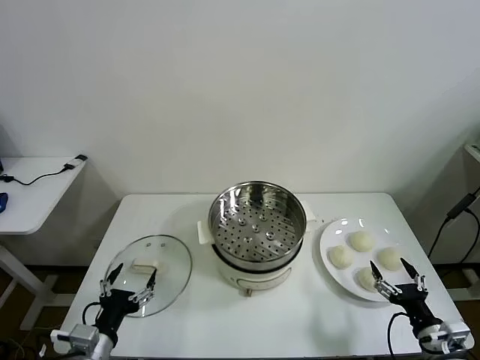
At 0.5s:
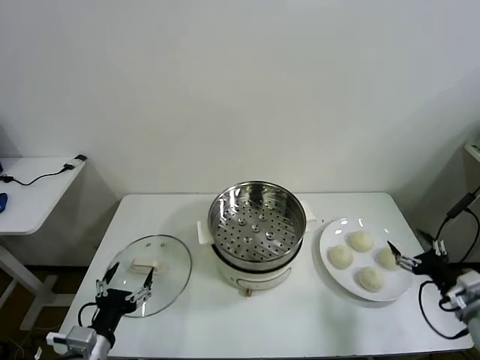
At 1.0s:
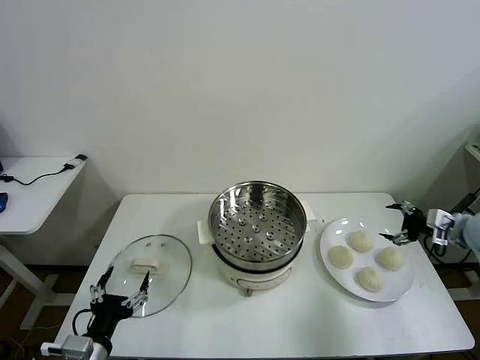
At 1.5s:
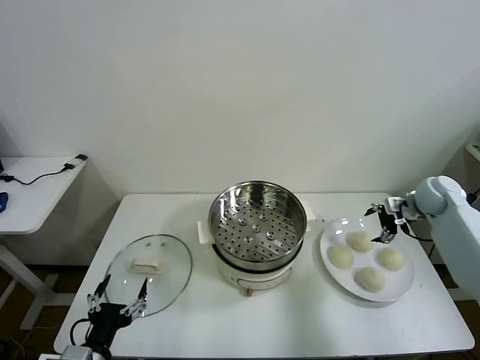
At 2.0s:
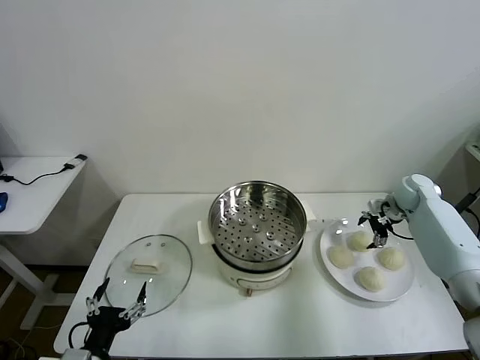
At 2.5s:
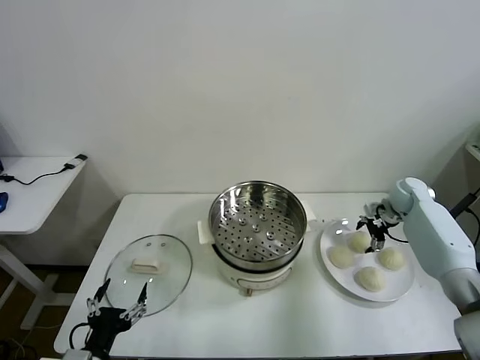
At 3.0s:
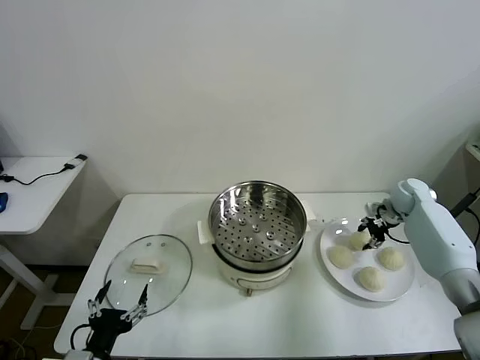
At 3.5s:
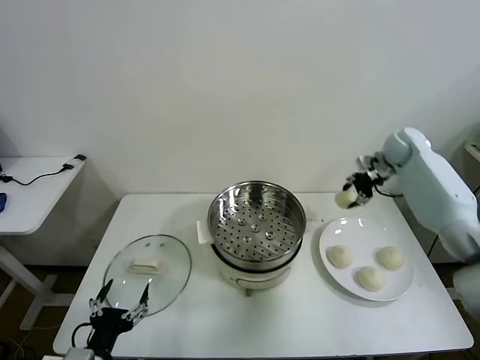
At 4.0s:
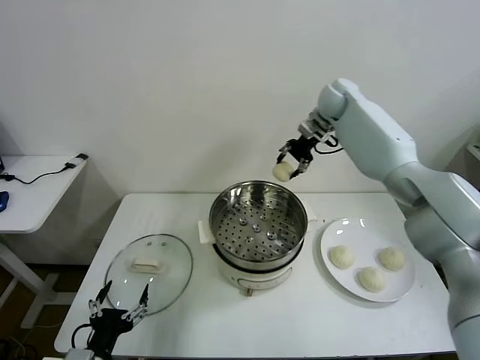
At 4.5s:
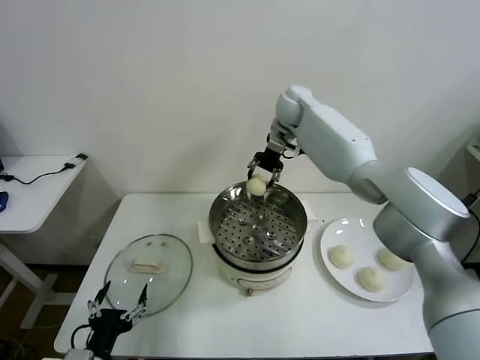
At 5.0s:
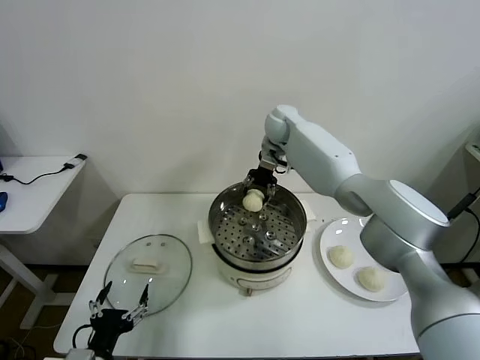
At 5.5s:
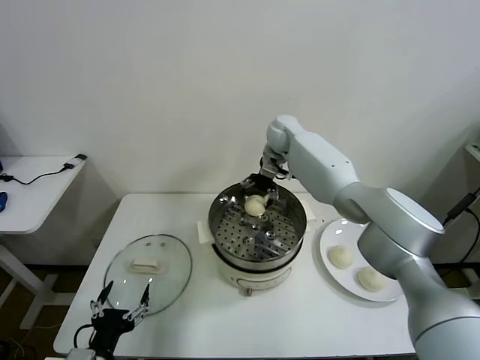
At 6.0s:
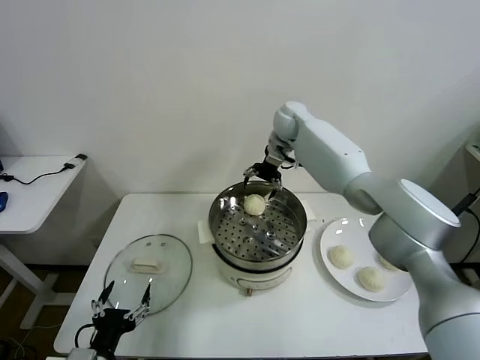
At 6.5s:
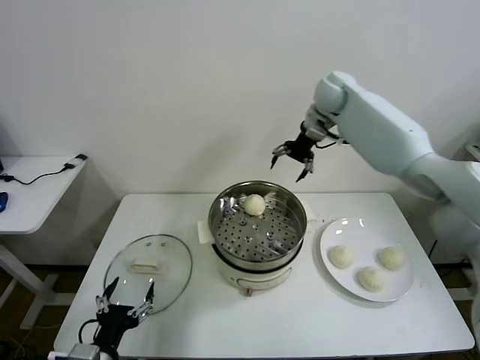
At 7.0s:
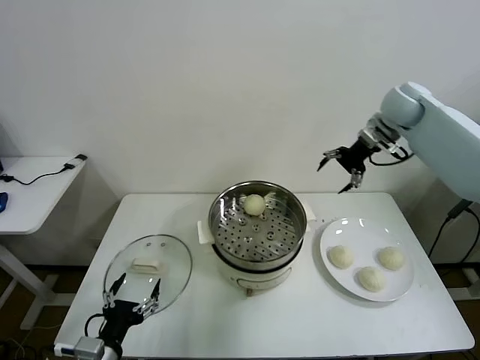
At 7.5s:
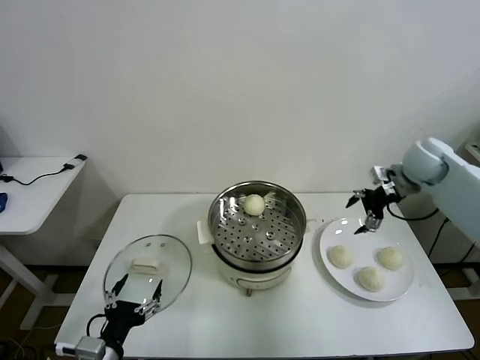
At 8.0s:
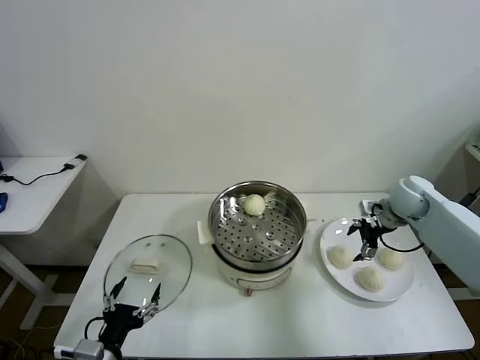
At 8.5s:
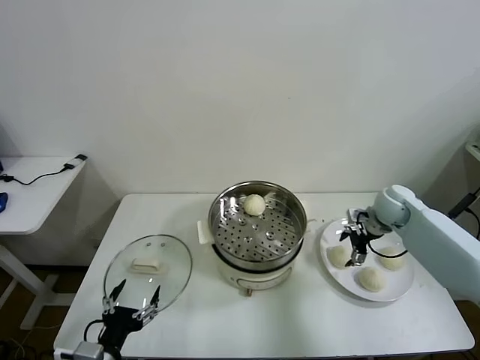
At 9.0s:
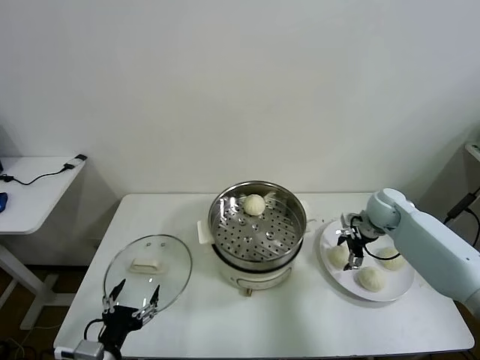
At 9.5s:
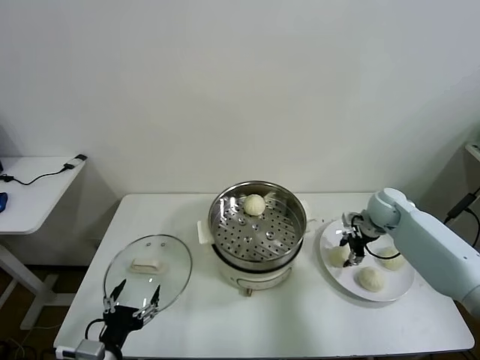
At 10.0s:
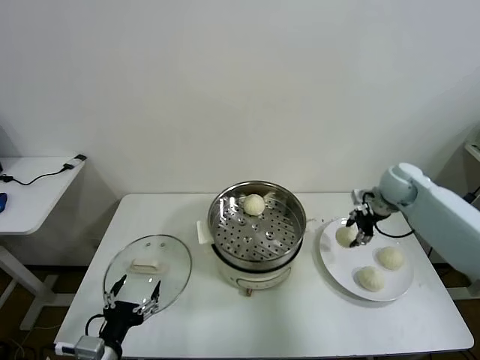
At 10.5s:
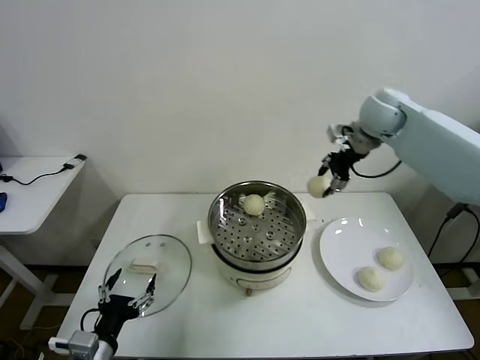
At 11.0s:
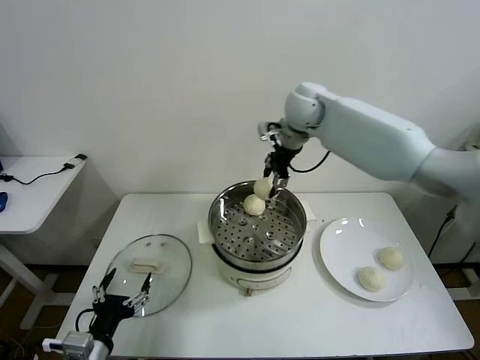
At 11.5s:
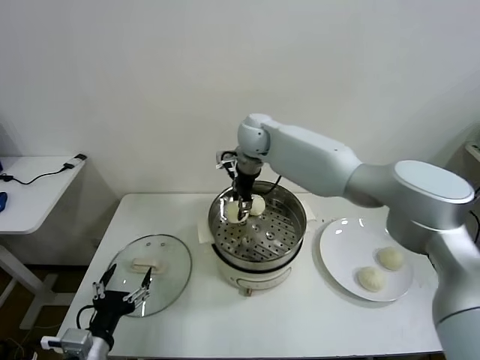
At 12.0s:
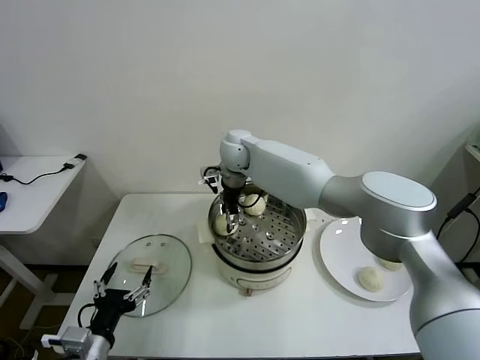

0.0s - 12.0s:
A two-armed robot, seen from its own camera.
Task of the whole recording: take steamed baozi put them in steamer then cover it.
Step, 0.0s - 2.5s: Grasp the baozi in the plate with right gripper.
Step, 3.5s - 5.5s: Place the baozi on the steamer with right gripper.
Step, 6.0s - 9.5s: Grasp the baozi in the plate with right gripper.
2.0s - 4.0s: The right gripper travels to the left, upward and forward by roughly 35 cm, and closes its fingers.
4.0s - 6.0s: The right gripper shifts some 5 cm to the left, and opens its fingers.
6.0s - 8.0s: The right gripper goes roughly 35 cm to the right, backward and downward.
8.0s - 10.0s: The right gripper heads upward, covering approximately 5 cm, and closes up.
10.0s - 12.0s: The right gripper goes approximately 40 cm to the left.

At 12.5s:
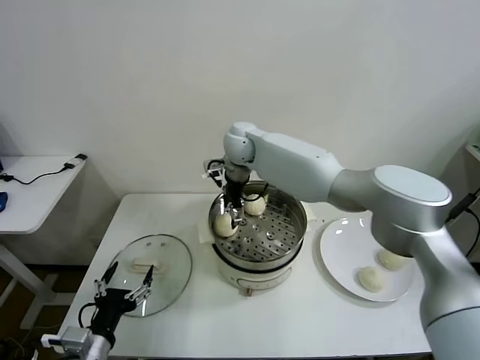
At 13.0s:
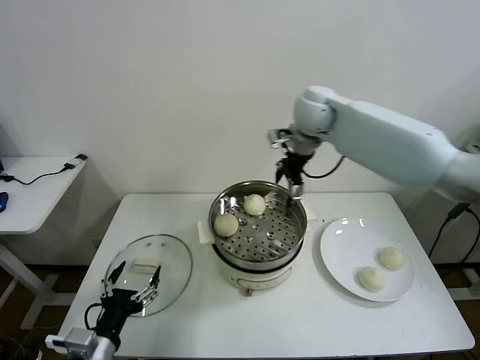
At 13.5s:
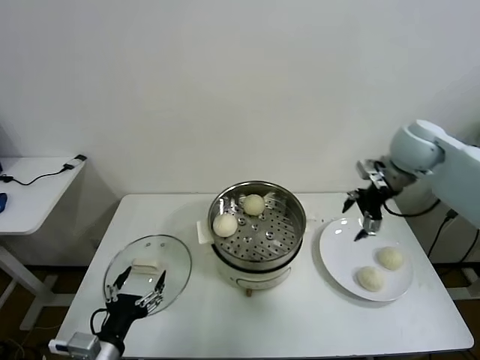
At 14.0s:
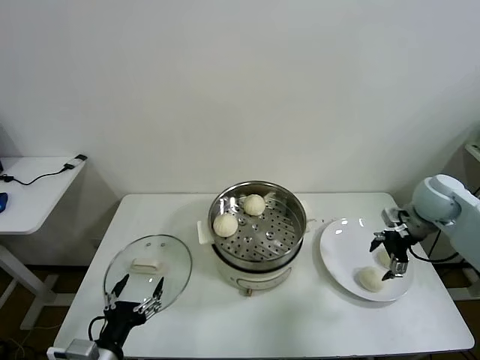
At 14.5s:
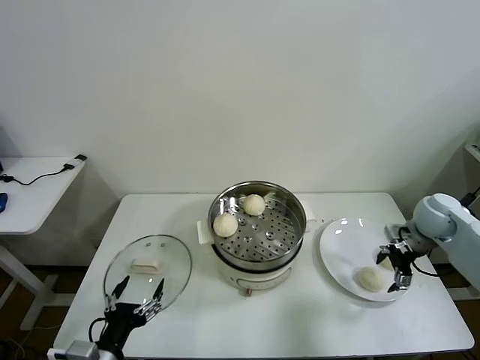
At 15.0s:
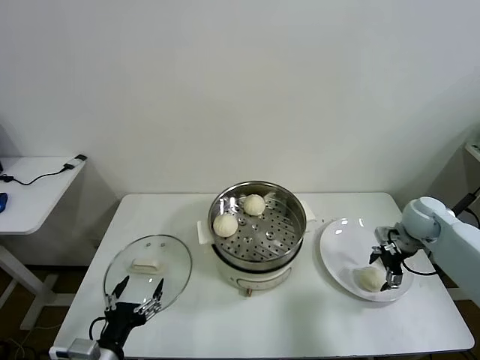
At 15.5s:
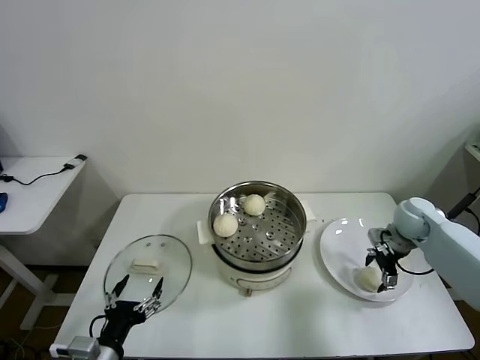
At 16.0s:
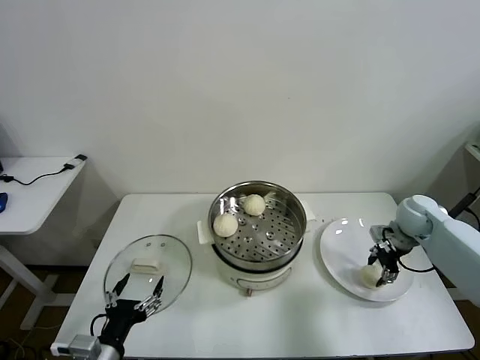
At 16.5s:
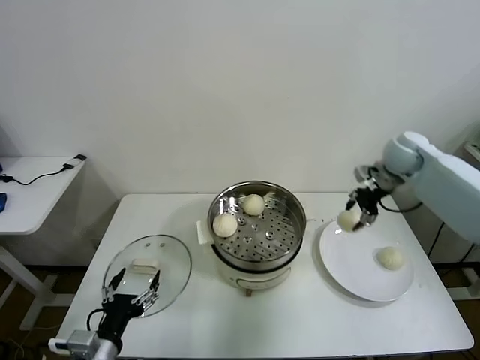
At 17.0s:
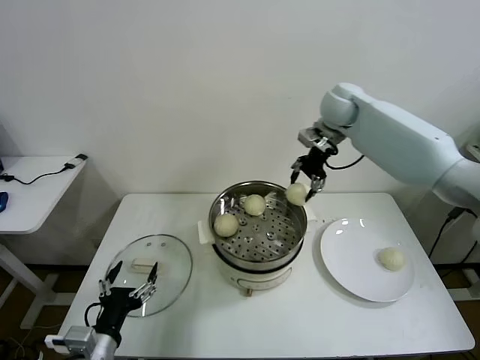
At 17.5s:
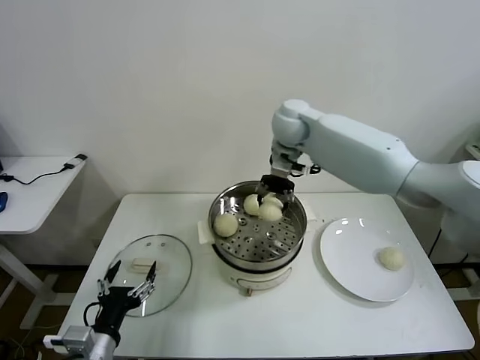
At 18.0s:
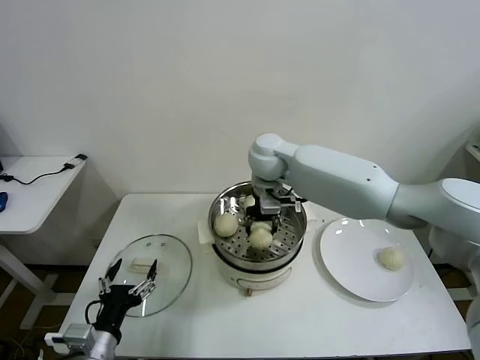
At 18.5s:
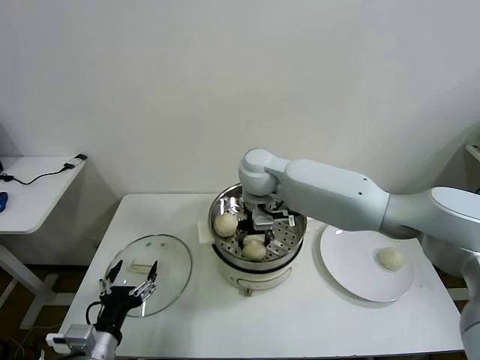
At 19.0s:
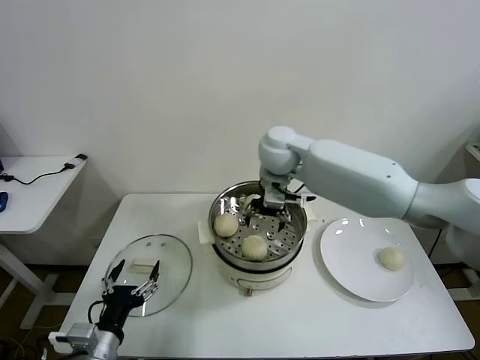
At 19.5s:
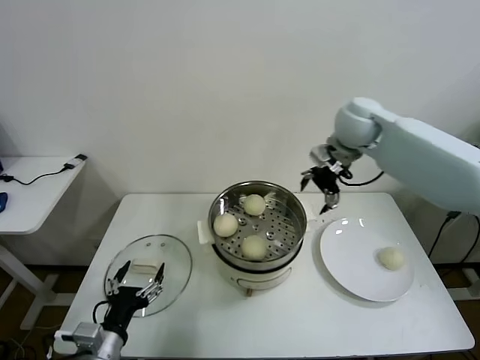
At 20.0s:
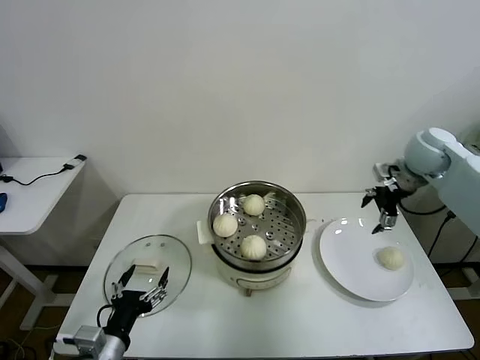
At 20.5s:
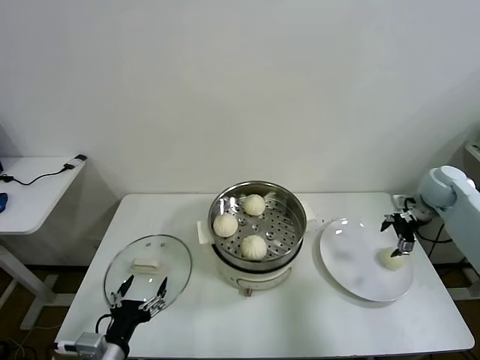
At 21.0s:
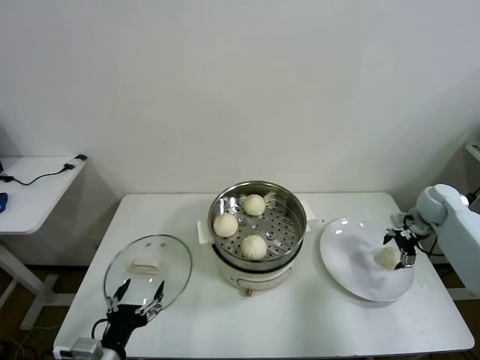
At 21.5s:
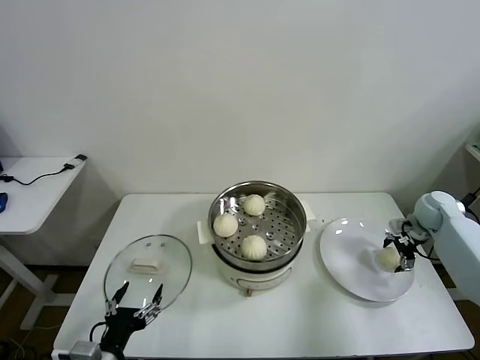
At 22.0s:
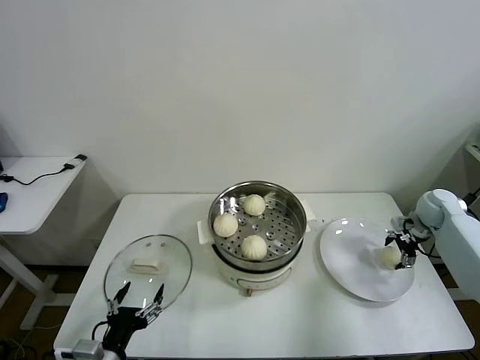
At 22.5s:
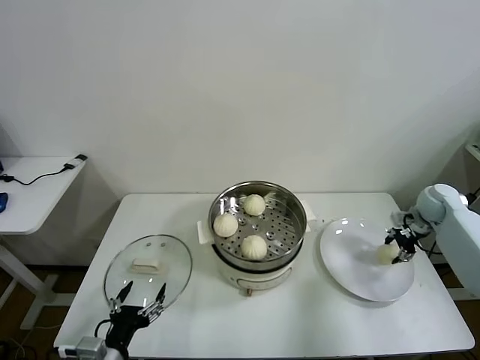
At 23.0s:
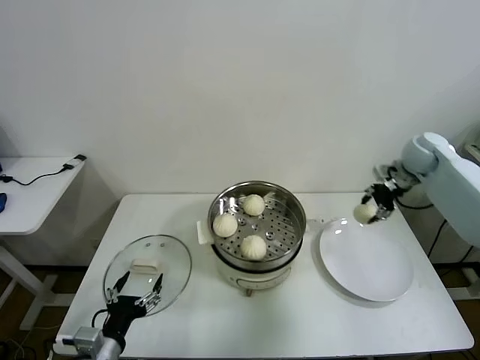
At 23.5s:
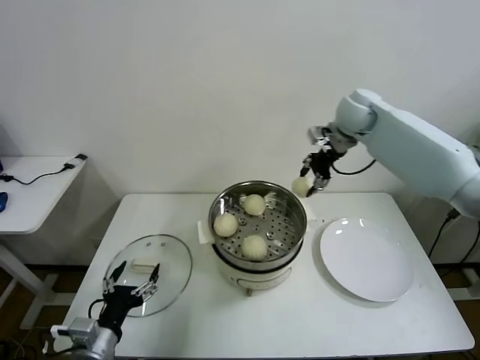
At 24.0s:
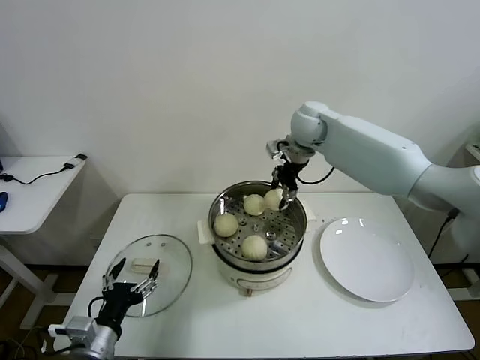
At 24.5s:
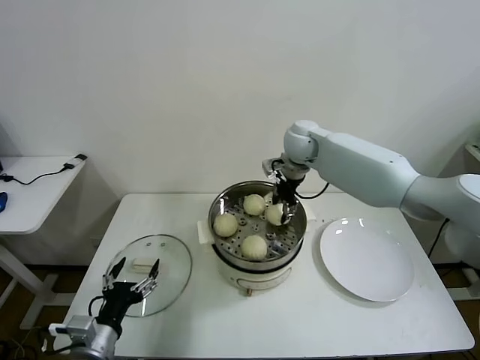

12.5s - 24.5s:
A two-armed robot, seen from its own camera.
Task of the whole recording: take steamed baozi put them in steamer then cover it.
Step, 12.5s - 15.5s: Grasp the baozi in the plate with right gripper.
Step, 16.0s - 18.5s: Place the baozi on the steamer with right gripper.
Step, 19.0s - 22.0s: Grasp the baozi in the plate with right gripper.
12.5s - 14.5s: The right gripper moves to the right, some 40 cm.
14.5s - 16.5s: The right gripper heads upward, forward and to the left, covering roughly 20 cm, and closes its fingers.
16.5s - 18.5s: The right gripper moves to the left, approximately 35 cm.
18.5s - 20.5s: The right gripper heads to the right, covering some 40 cm, and opens.
20.5s - 22.5s: The right gripper shifts about 5 cm downward, and closes.
22.5s - 24.5s: The right gripper heads to the left, covering approximately 35 cm.

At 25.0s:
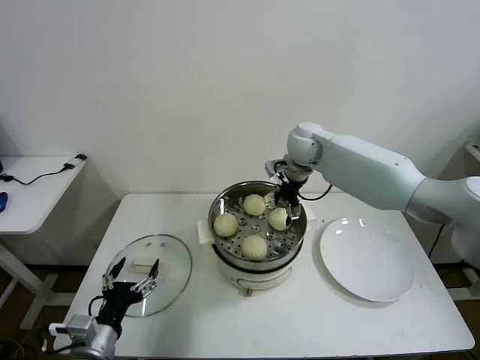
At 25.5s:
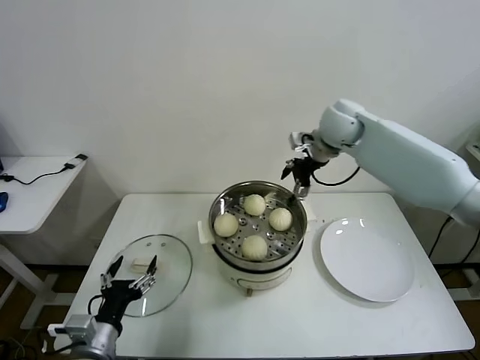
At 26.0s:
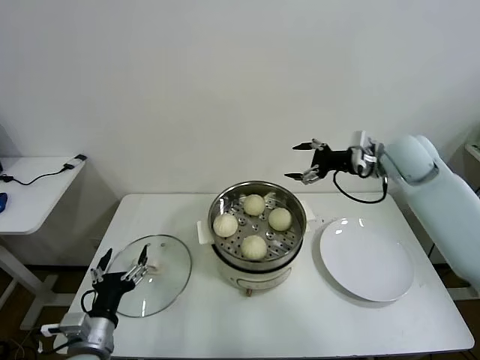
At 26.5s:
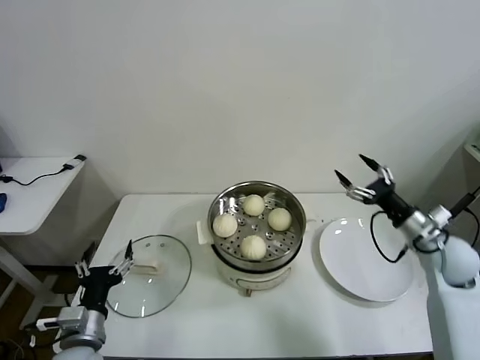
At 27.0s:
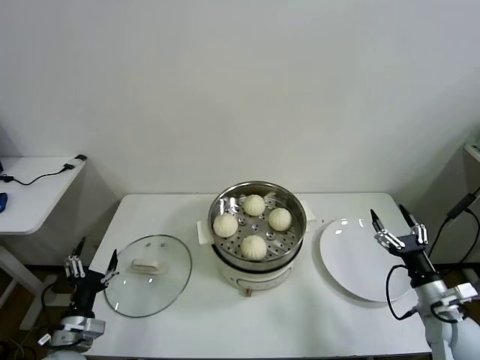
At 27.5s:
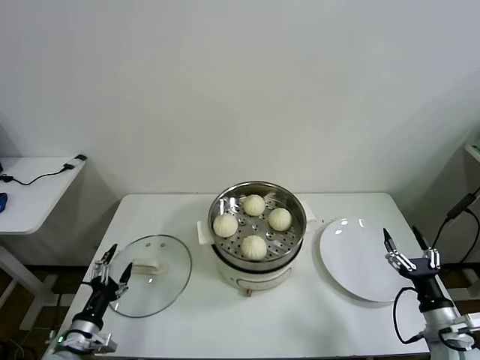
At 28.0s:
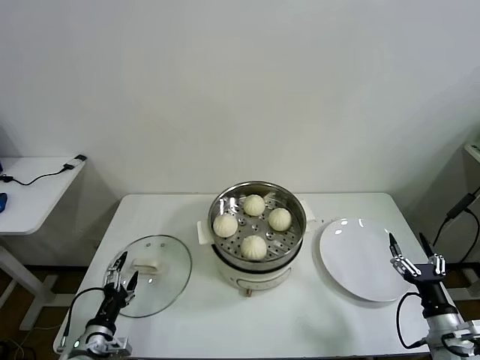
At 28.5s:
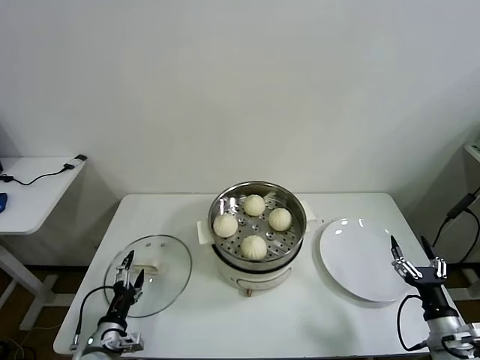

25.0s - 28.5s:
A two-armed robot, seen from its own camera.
Task of the whole recording: take steamed baozi put them in steamer then cover it.
25.0s - 27.0s: The left gripper travels to the left and downward by about 10 cm. Meanwhile the right gripper travels backward, to the right and downward by some 50 cm.
27.0s - 28.5s: The right gripper moves backward, approximately 5 cm. Meanwhile the left gripper is displaced downward by about 5 cm.
